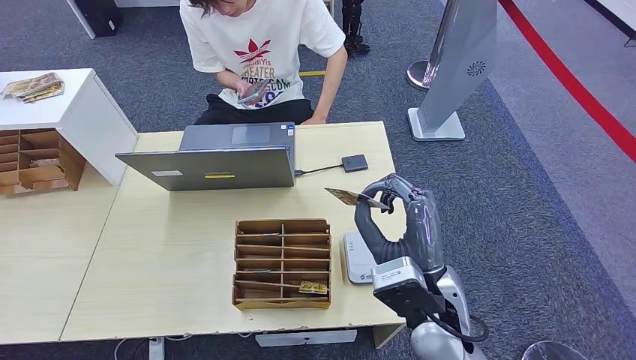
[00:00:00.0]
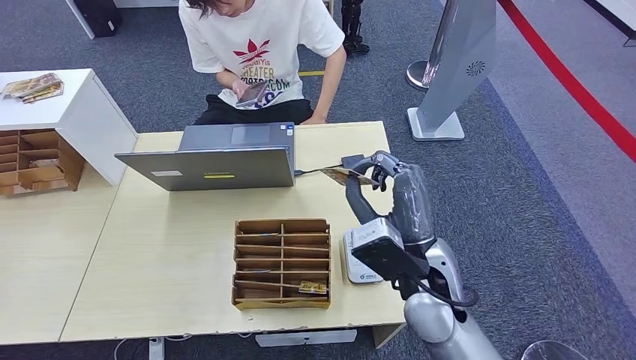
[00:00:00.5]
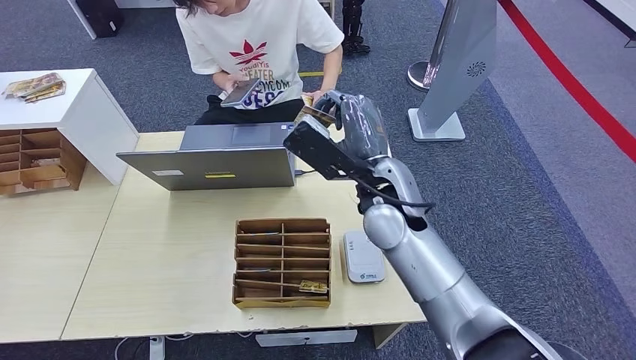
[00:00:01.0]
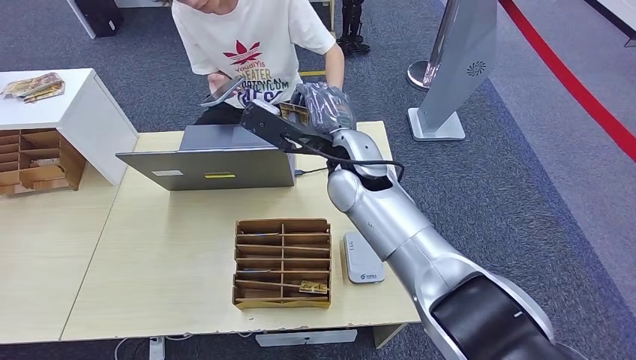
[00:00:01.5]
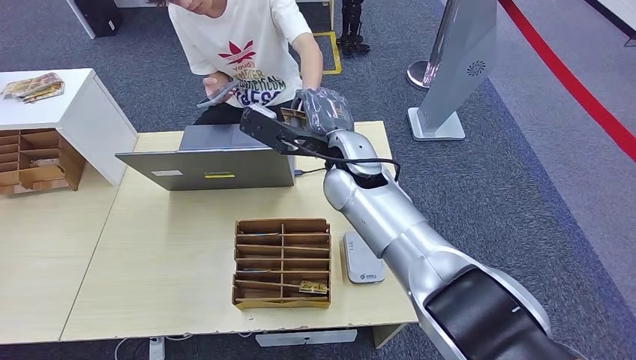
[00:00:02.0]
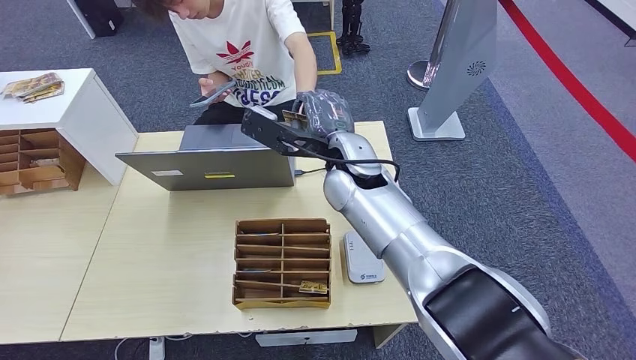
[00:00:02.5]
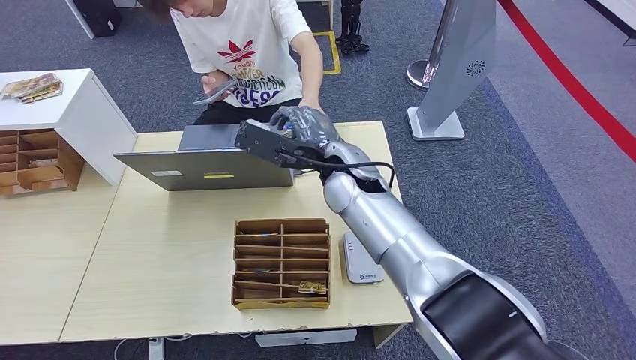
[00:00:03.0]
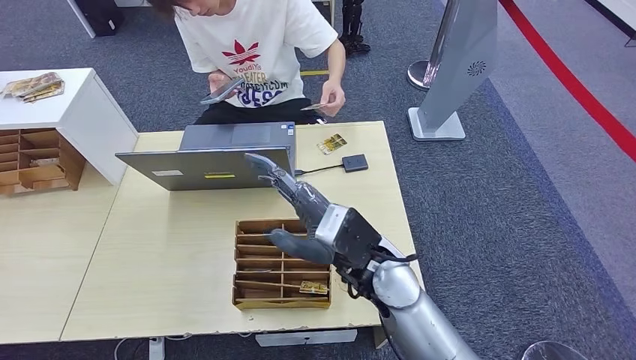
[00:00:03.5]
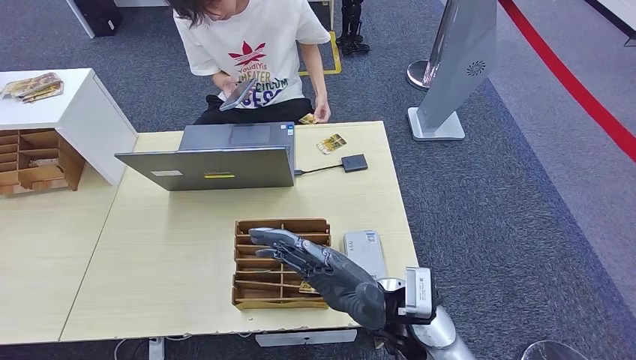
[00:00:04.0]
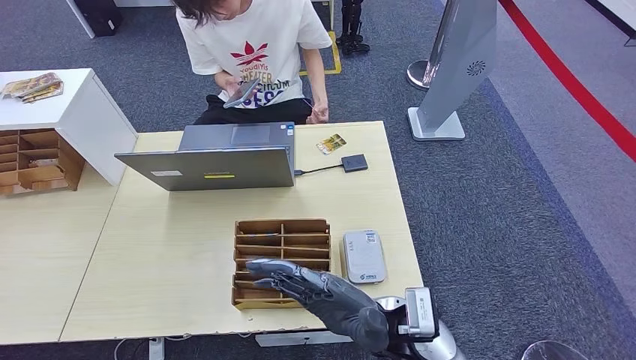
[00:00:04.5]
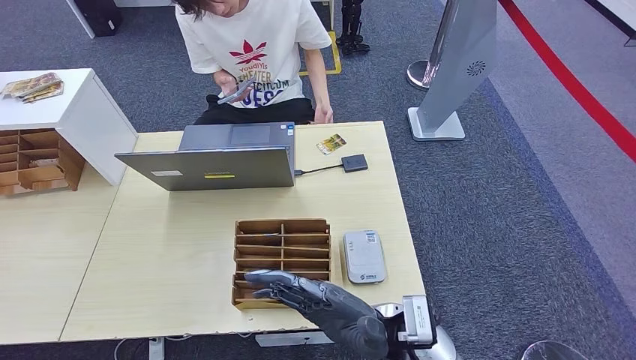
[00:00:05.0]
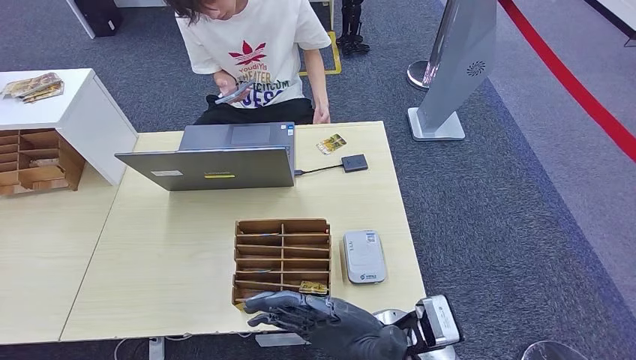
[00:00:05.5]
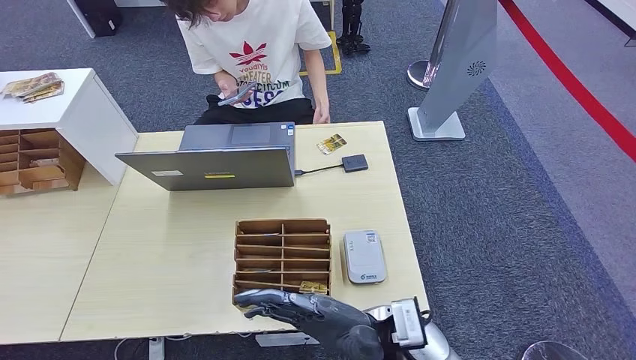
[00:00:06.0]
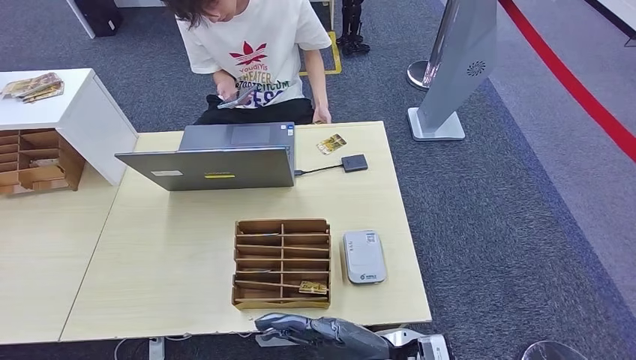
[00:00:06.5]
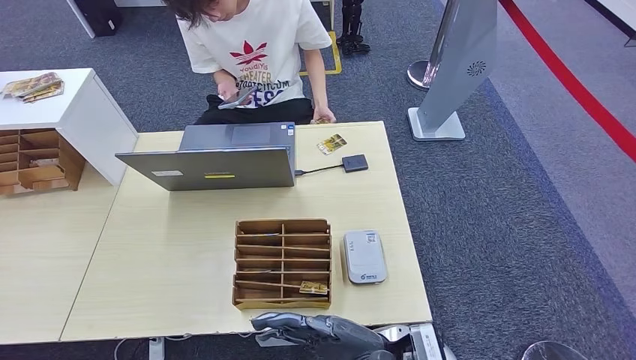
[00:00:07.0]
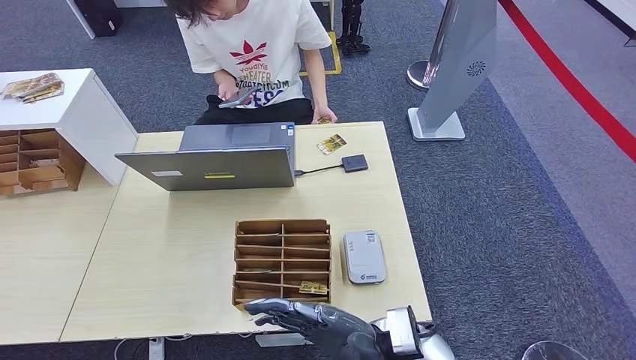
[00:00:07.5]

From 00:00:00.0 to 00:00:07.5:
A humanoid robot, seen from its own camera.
Step, from 00:00:00.0 to 00:00:07.5: Hand the room key to the person.
From 00:00:00.0 to 00:00:02.0: The left hand moves forward, approximately 5 cm, while the right hand travels forward, to the left and upward by approximately 20 cm.
From 00:00:02.0 to 00:00:04.0: The right hand is displaced backward and downward by some 20 cm.
From 00:00:04.0 to 00:00:05.5: The hands stay close to where they were, moving slightly.
